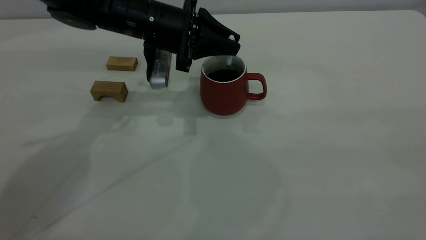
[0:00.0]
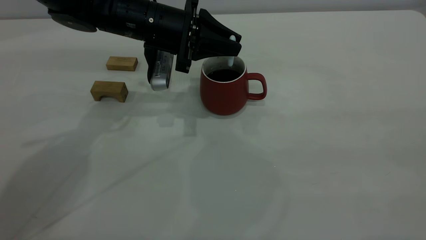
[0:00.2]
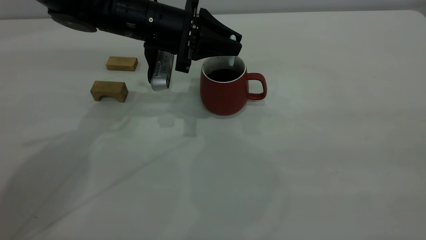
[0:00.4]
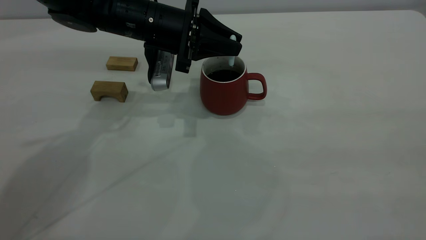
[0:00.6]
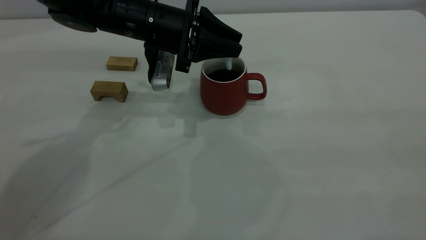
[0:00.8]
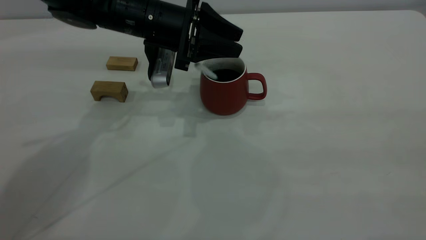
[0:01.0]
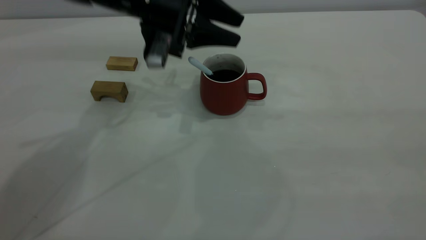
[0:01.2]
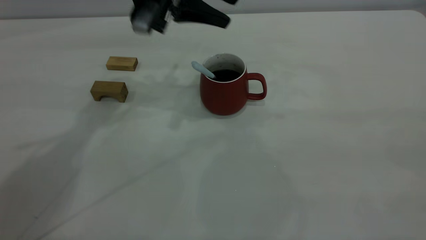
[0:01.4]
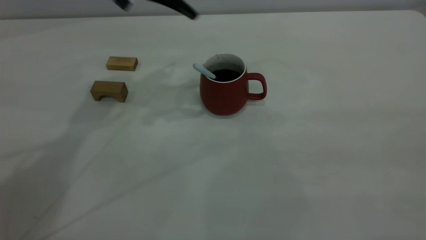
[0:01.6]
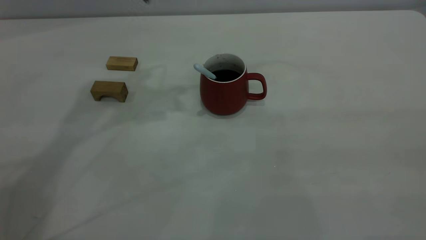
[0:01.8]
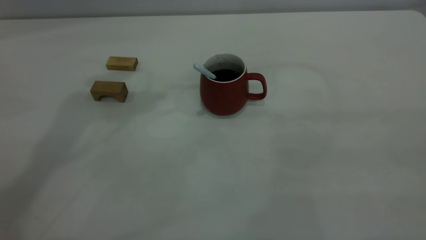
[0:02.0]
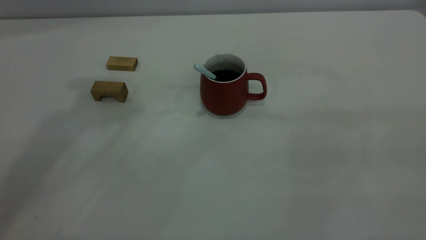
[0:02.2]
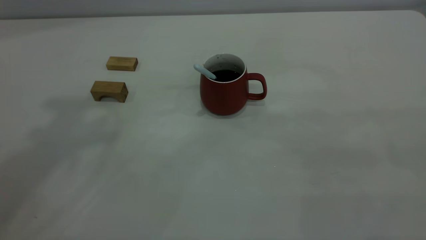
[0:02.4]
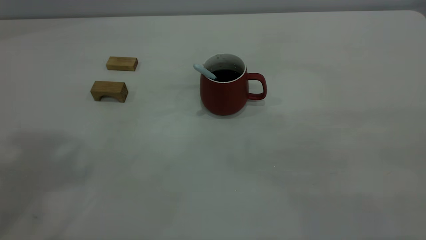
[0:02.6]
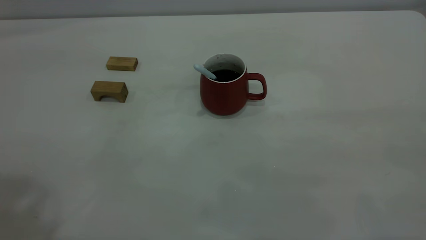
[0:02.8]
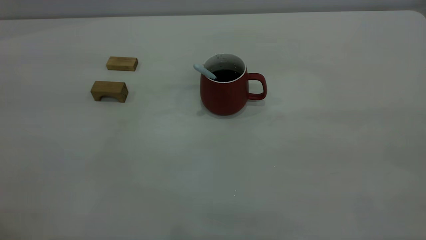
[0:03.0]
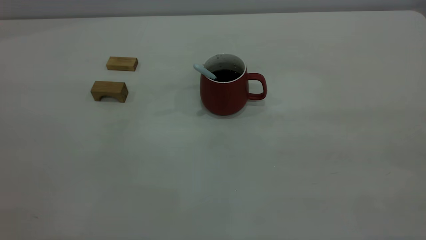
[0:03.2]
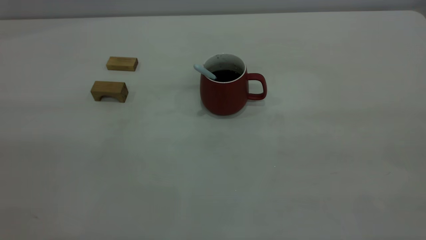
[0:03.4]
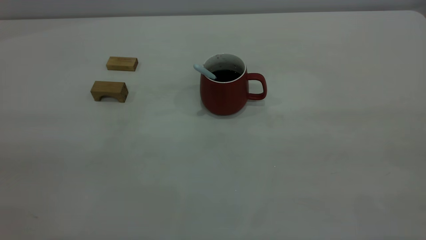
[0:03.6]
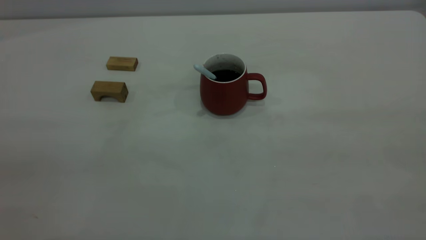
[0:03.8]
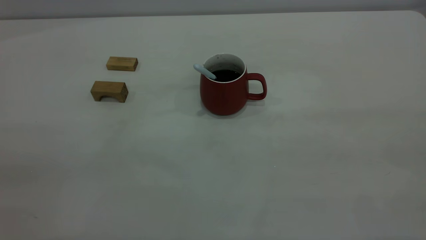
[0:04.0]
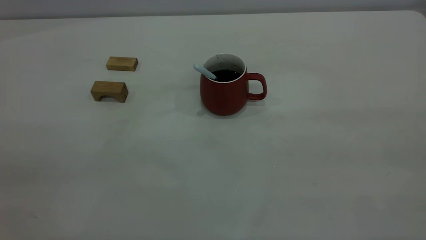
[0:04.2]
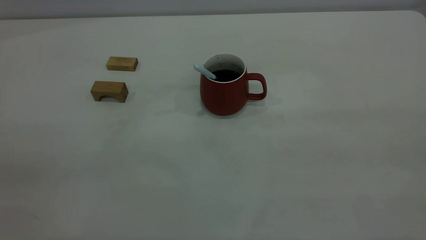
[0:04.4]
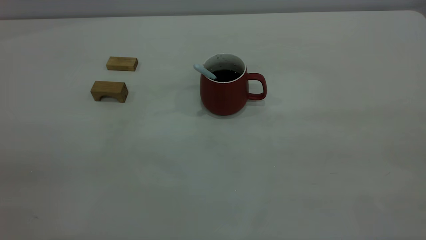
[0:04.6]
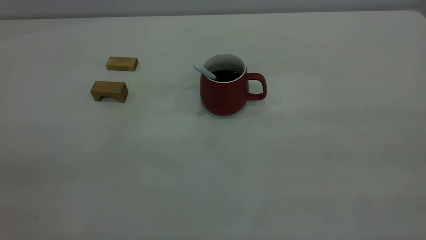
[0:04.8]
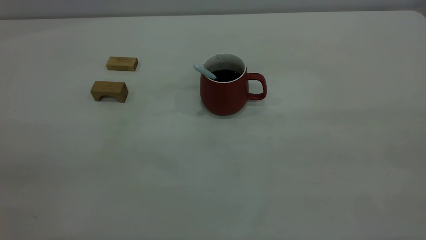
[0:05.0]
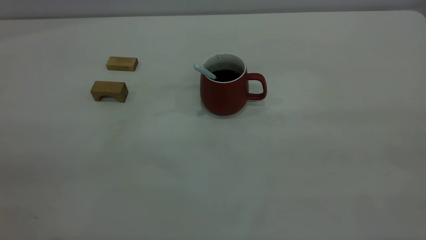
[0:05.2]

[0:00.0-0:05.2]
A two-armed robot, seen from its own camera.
0:00.0 to 0:01.8: The left gripper heads upward, covering roughly 20 cm, and opens up.
